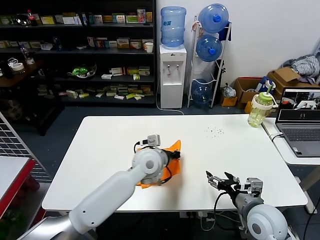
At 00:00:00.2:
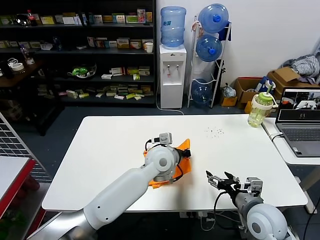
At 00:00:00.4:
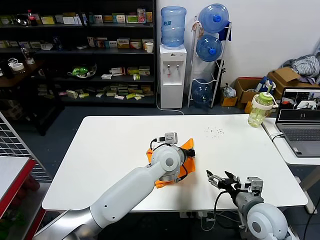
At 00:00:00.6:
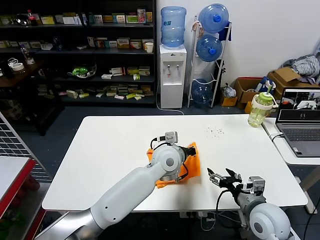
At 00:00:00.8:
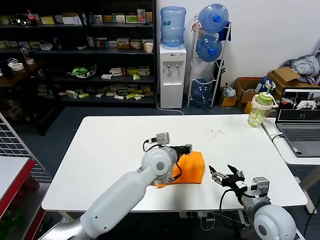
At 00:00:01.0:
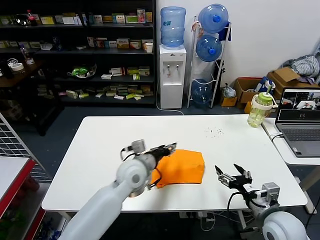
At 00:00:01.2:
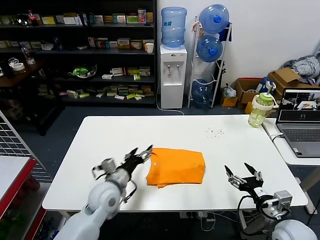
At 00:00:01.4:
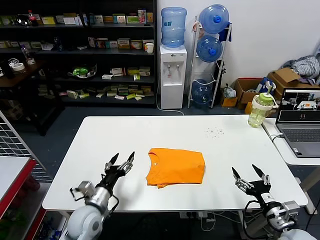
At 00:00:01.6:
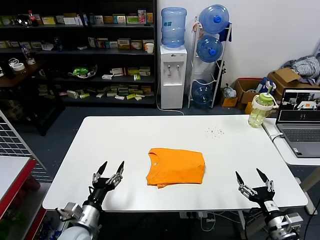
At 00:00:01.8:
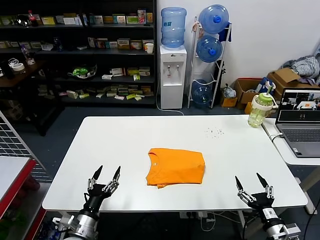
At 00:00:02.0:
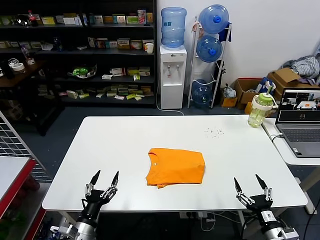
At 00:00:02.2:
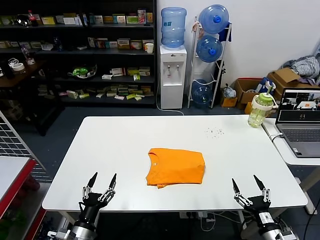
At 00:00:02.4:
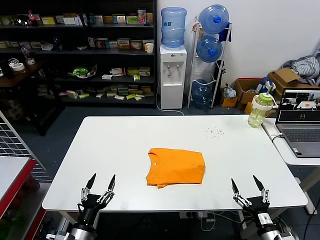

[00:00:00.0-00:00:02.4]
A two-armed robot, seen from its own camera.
Task of the whole recording: fold and organize the clothes.
00:00:00.0 to 00:00:01.2: The right gripper is displaced to the right by roughly 5 cm. Meanwhile the left gripper shifts some 10 cm to the left, backward and downward, and opens up.
00:00:01.2 to 00:00:02.4: The right gripper moves downward and backward, approximately 10 cm; the left gripper travels backward, to the left and downward by some 25 cm.
